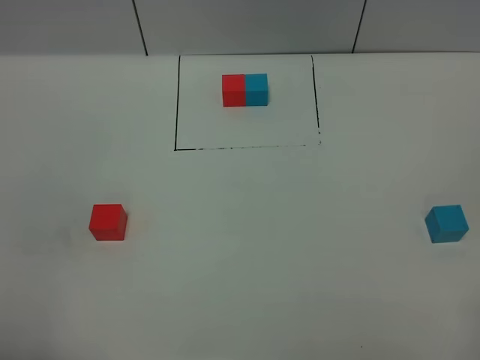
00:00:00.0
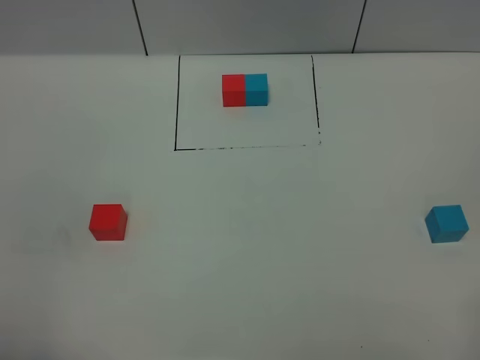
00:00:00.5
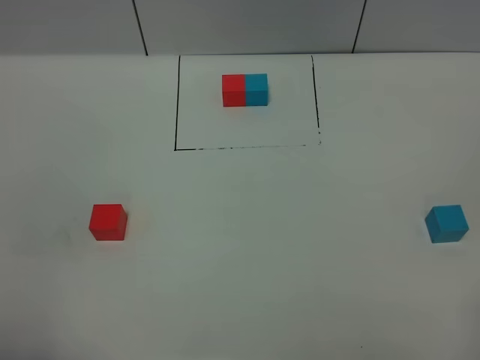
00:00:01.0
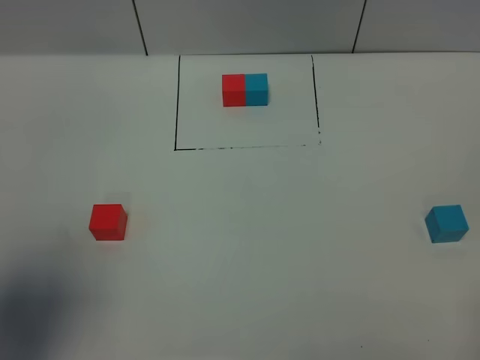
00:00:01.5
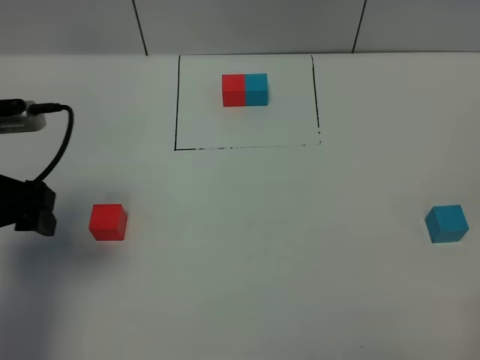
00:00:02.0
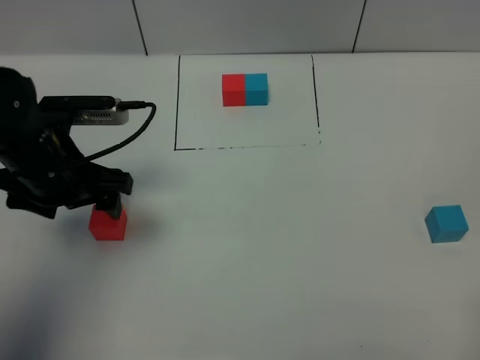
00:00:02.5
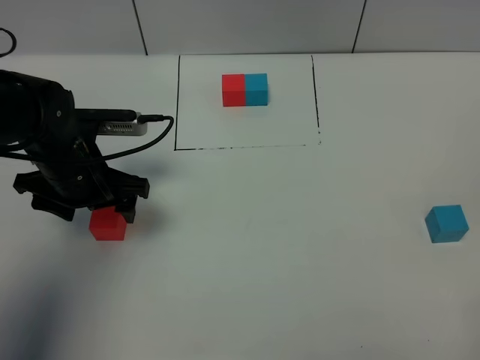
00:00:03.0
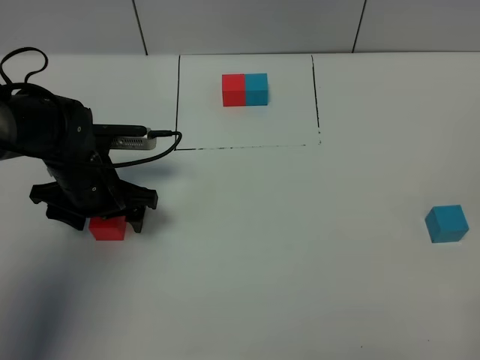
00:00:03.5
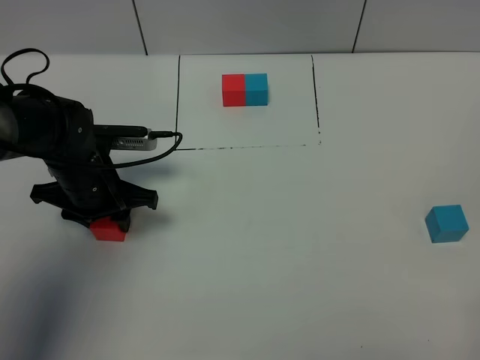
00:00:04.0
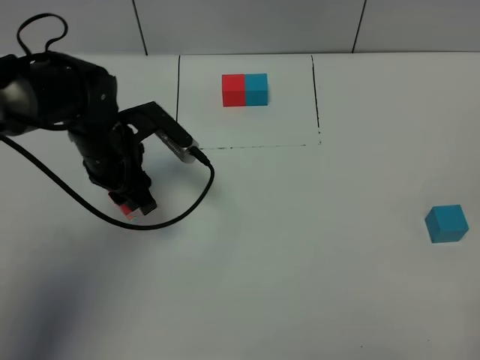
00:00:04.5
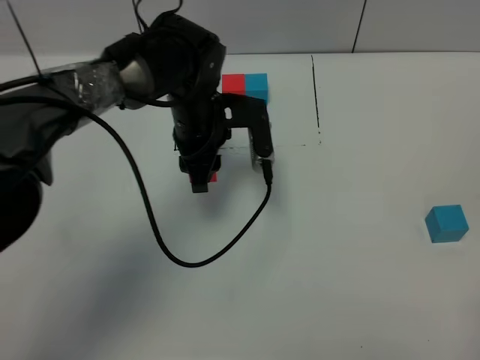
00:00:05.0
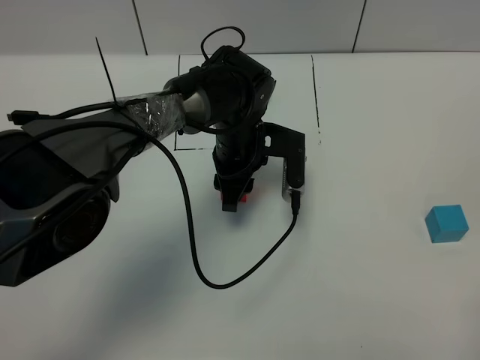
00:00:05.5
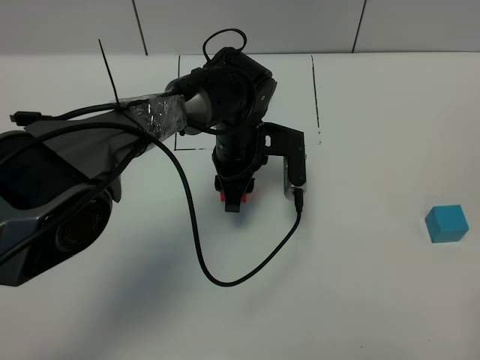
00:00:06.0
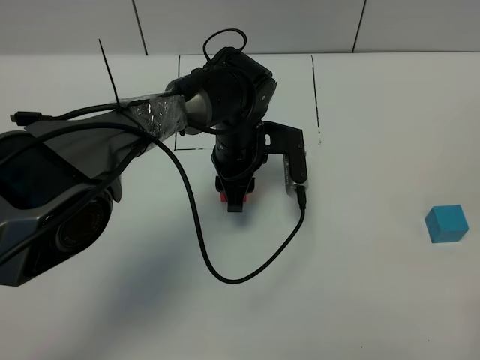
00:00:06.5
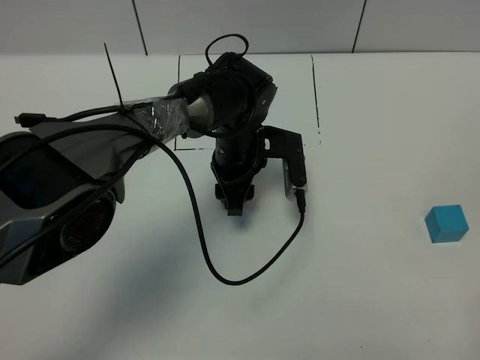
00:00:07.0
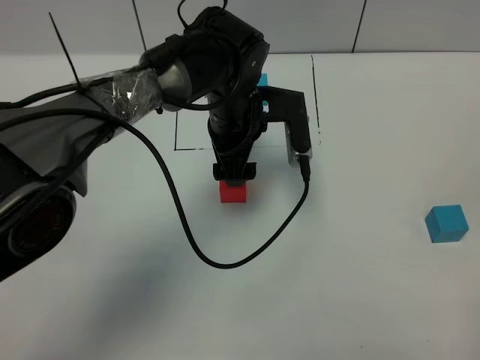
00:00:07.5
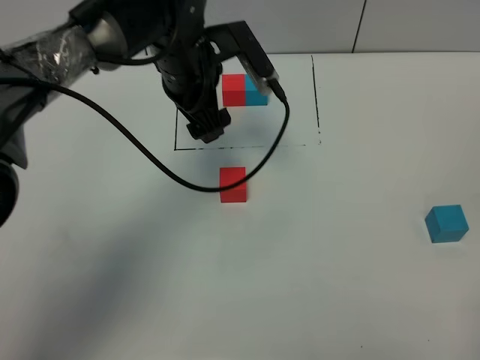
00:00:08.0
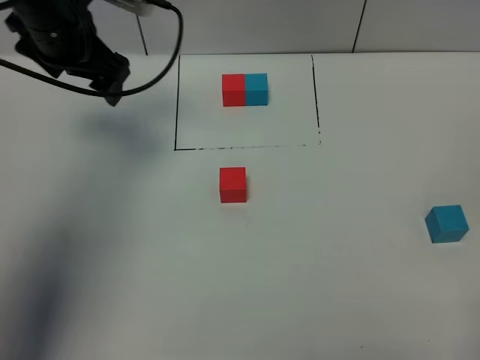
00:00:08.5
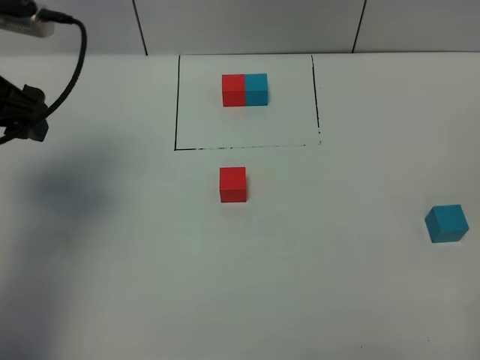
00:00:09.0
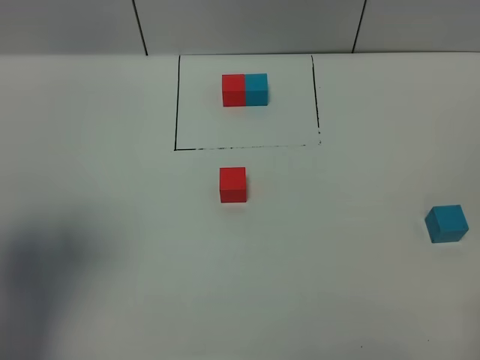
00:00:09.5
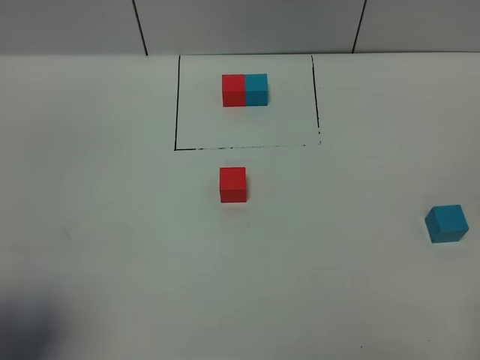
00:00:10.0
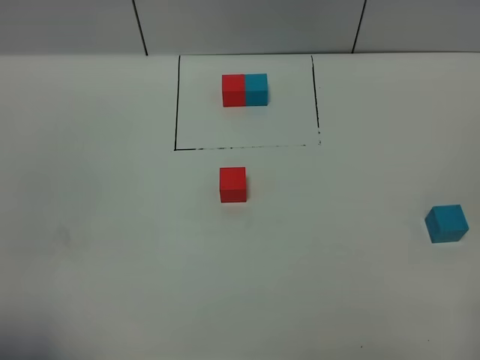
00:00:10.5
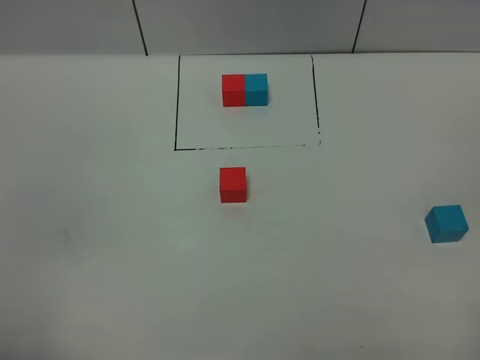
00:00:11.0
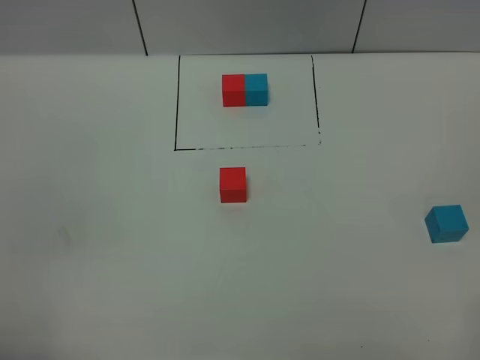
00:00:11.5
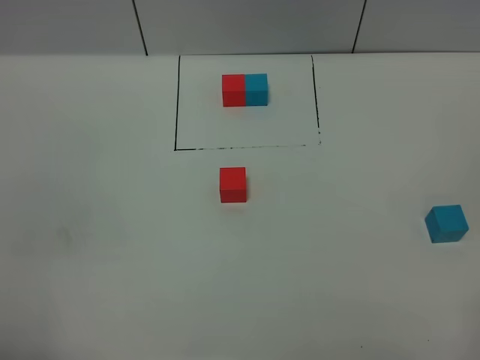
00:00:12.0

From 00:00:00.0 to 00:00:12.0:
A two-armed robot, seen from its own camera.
Task of the whole recording: According to the building block template in front, assemble the scattered blocks together.
Step, from 00:00:02.0 to 00:00:07.0: Put the red cube in the center of the table.
From 00:00:00.0 to 00:00:02.0: The left gripper heads forward, covering some 25 cm.
From 00:00:02.0 to 00:00:04.0: The left gripper shifts approximately 15 cm downward, forward and to the right, and closes its fingers.
From 00:00:04.0 to 00:00:06.0: The left gripper heads to the right, covering approximately 20 cm.
From 00:00:06.0 to 00:00:08.0: The left gripper shifts approximately 15 cm upward and to the left, and opens.
From 00:00:08.0 to 00:00:10.0: The left gripper goes roughly 40 cm backward and to the left.
From 00:00:10.0 to 00:00:12.0: The left gripper goes roughly 10 cm backward.

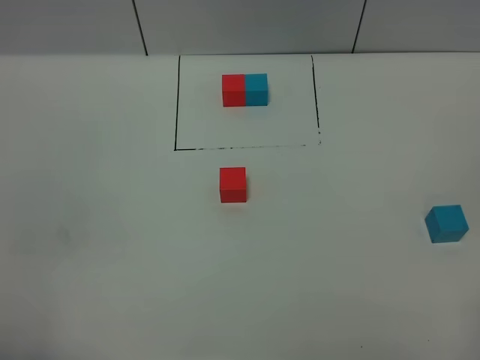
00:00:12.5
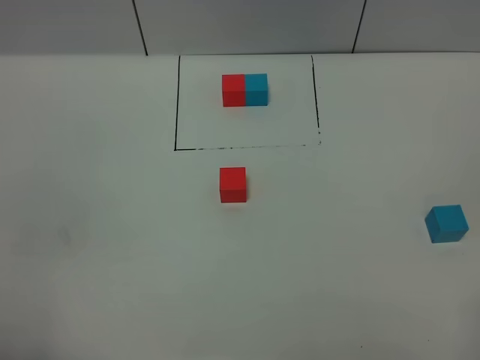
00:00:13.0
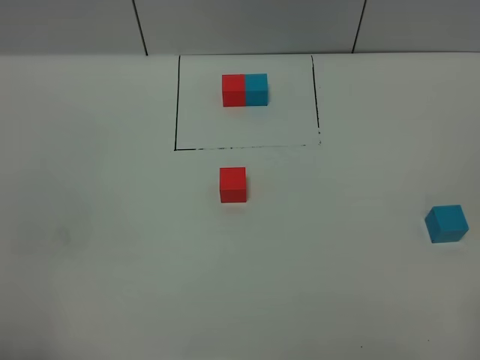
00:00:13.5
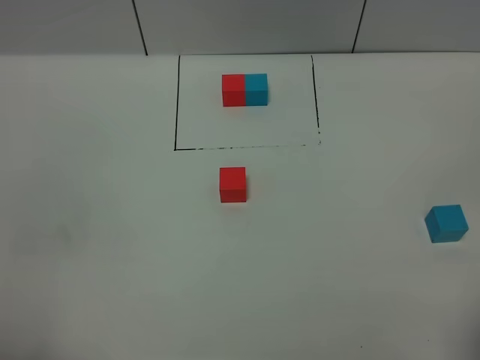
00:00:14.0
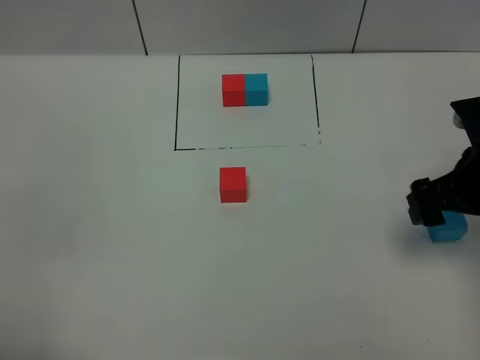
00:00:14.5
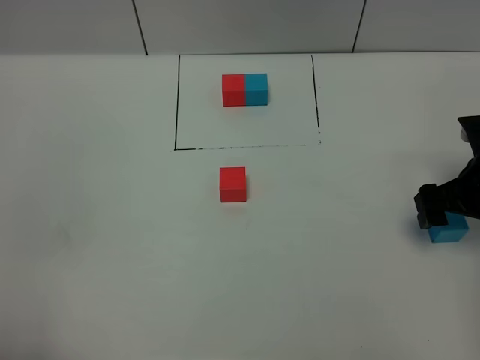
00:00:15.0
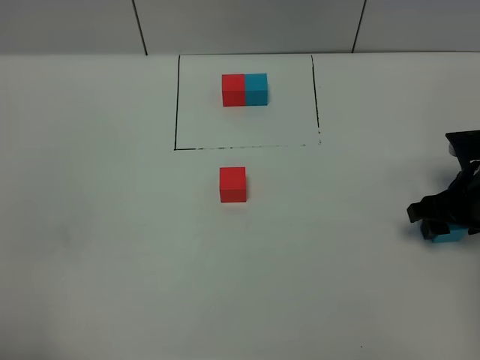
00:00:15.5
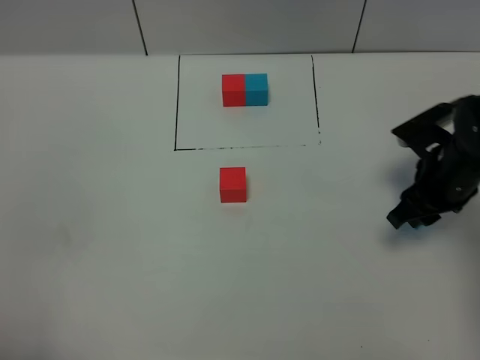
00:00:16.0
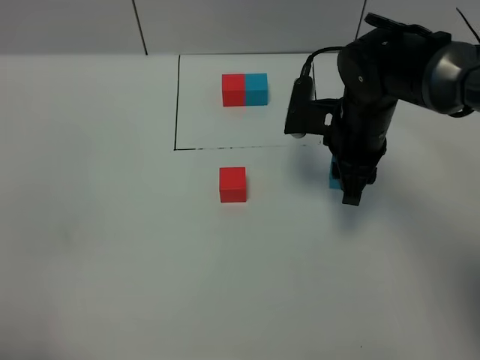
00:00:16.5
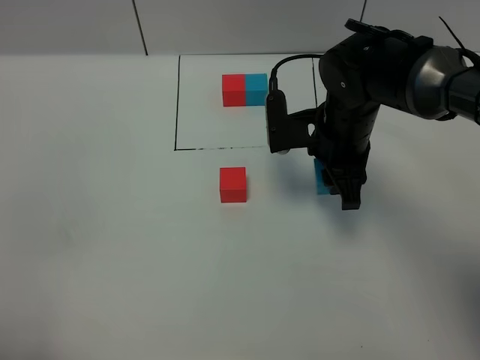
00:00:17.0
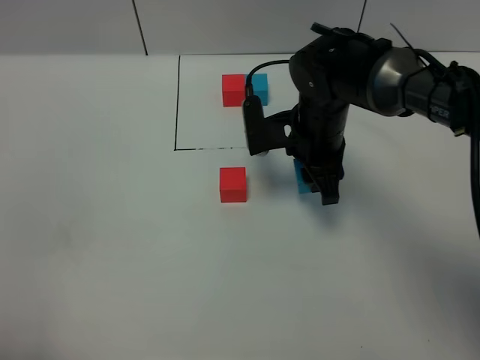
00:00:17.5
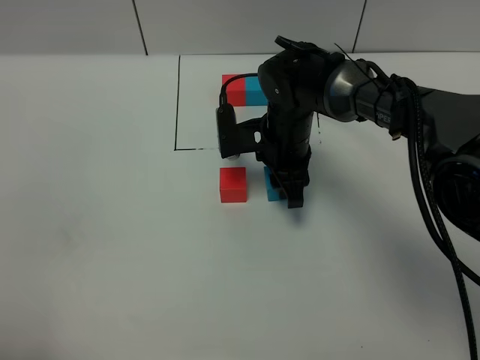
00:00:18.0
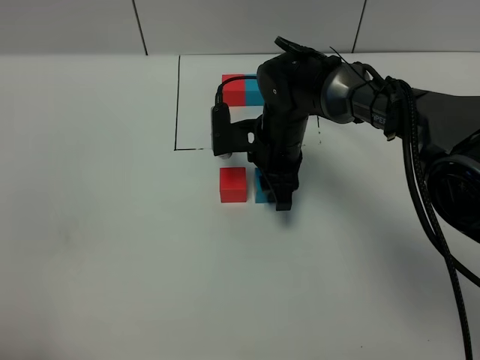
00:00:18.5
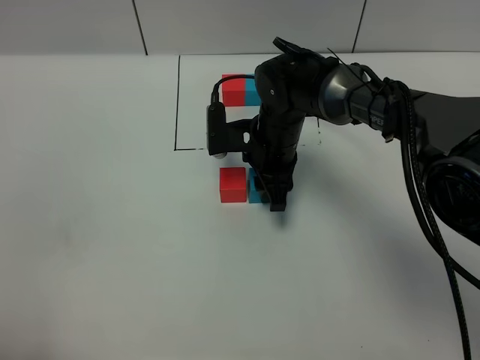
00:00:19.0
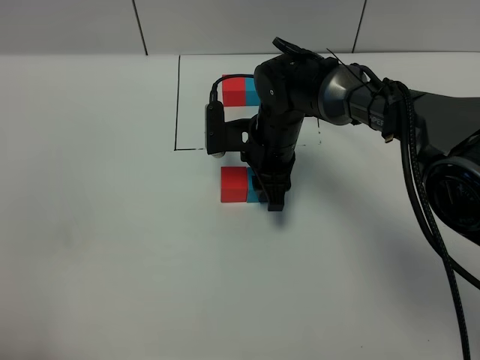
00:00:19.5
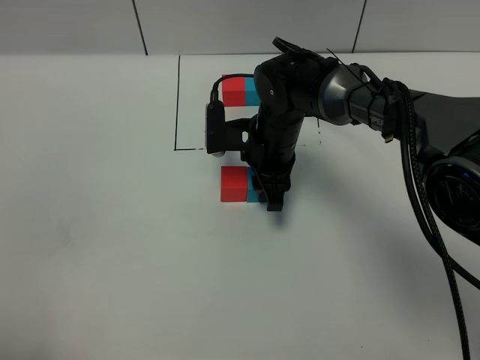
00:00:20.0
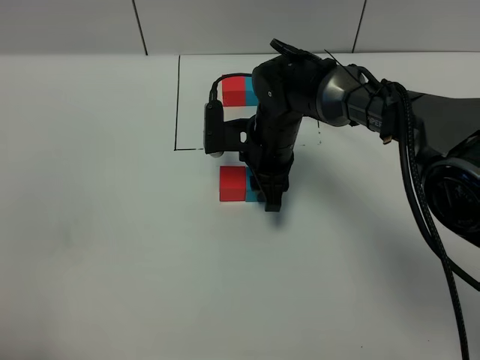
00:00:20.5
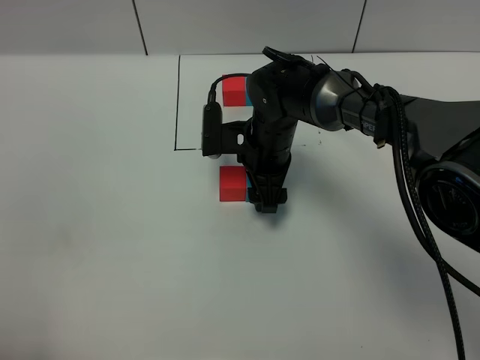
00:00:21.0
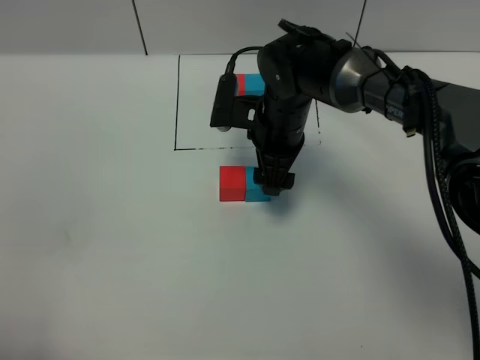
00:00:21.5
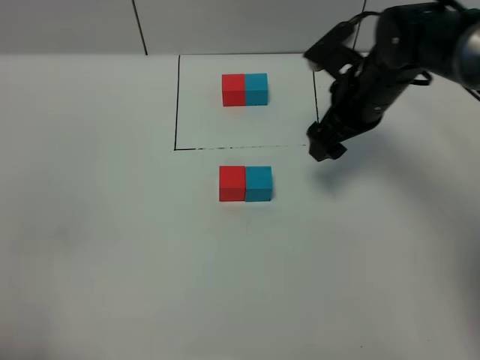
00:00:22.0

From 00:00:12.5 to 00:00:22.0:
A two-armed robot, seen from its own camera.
Task of the whole recording: According to the building block template in front, assemble the scattered blocks together.
Step, from 00:00:12.5 to 00:00:21.0: Put the blue cube on the right of the red cube.
From 00:00:12.5 to 00:00:14.5: The right gripper travels forward by approximately 25 cm.
From 00:00:14.5 to 00:00:16.5: The right gripper shifts roughly 15 cm to the left and forward, and closes up.
From 00:00:16.5 to 00:00:18.0: The right gripper moves to the left and downward, roughly 10 cm.
From 00:00:18.0 to 00:00:20.0: The grippers stay close to where they were, moving slightly.
From 00:00:20.0 to 00:00:22.0: The right gripper travels to the right and upward by roughly 15 cm, and opens its fingers.

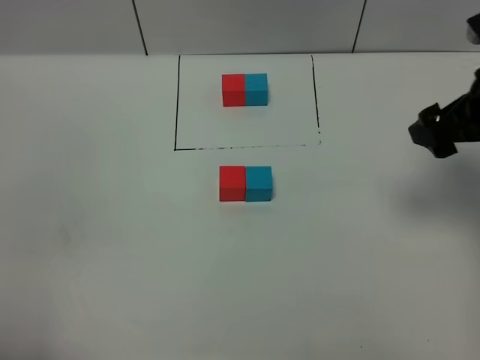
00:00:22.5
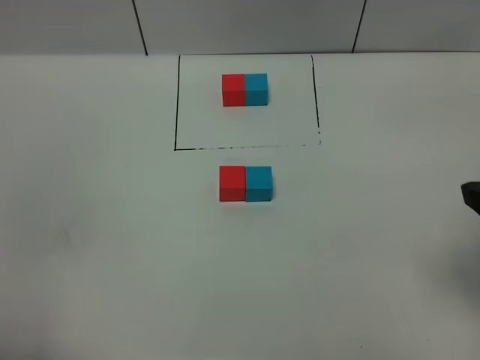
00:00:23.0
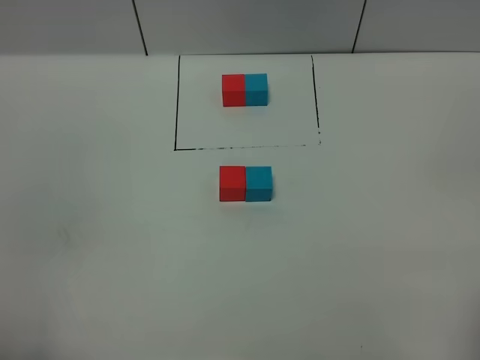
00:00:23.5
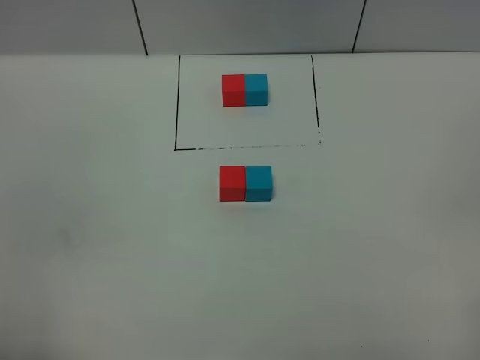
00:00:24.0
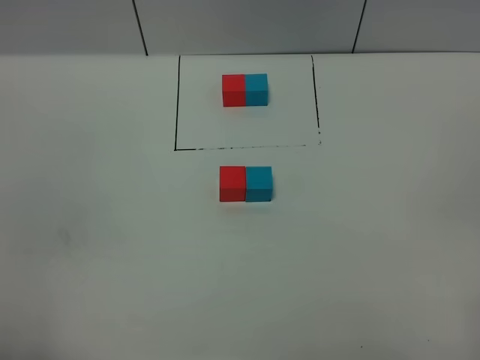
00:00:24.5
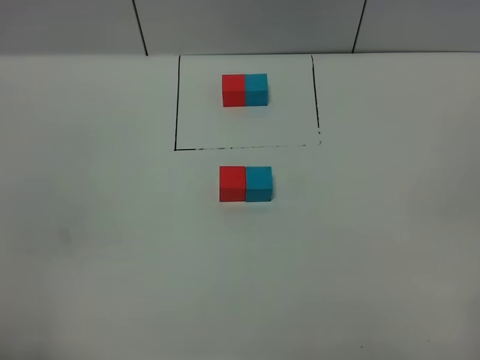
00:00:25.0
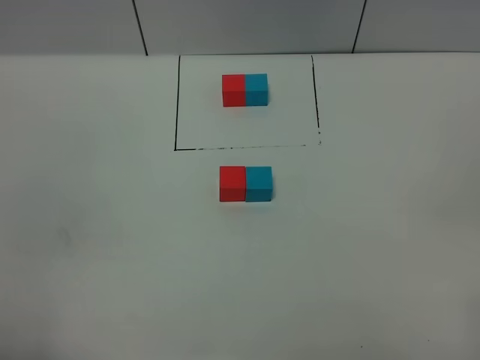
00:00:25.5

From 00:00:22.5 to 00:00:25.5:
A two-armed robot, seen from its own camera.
Task of the whole recording: According to the building block template in front, assemble the scattered blocks together.
From 00:00:22.5 to 00:00:24.0: The right gripper moves backward, roughly 30 cm.
